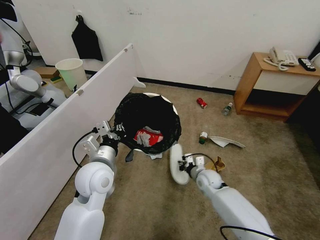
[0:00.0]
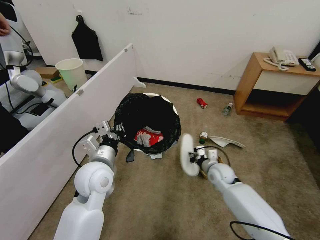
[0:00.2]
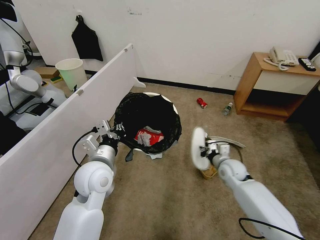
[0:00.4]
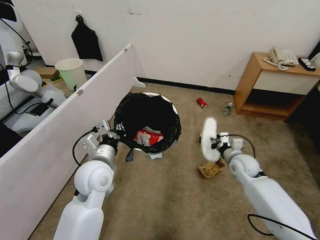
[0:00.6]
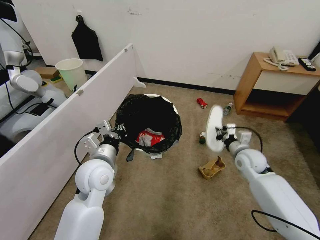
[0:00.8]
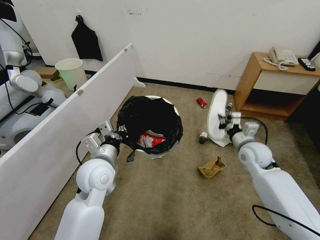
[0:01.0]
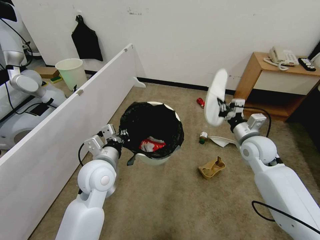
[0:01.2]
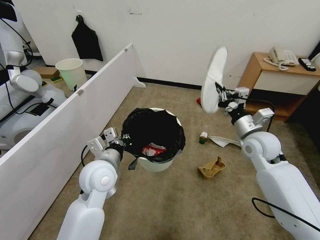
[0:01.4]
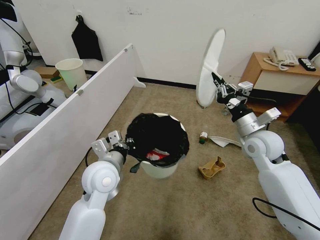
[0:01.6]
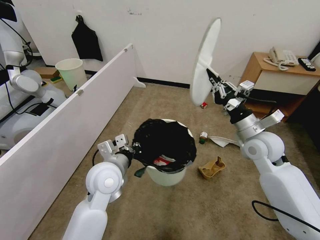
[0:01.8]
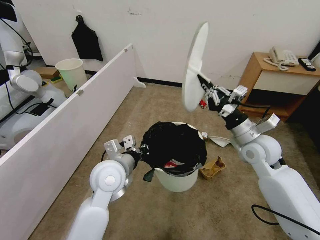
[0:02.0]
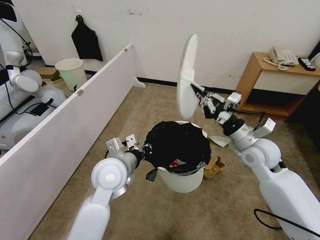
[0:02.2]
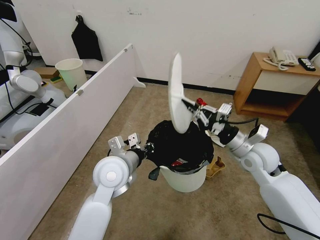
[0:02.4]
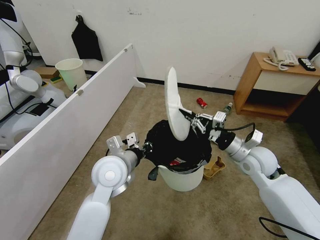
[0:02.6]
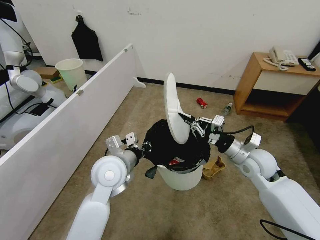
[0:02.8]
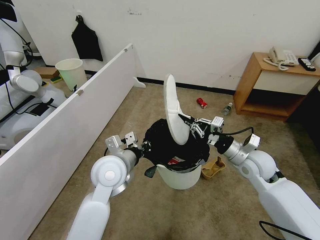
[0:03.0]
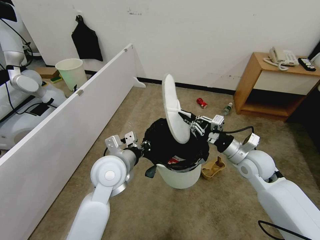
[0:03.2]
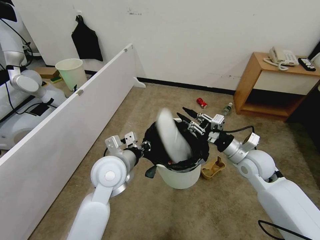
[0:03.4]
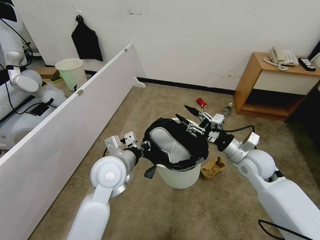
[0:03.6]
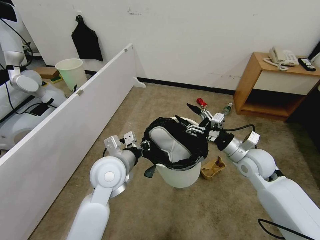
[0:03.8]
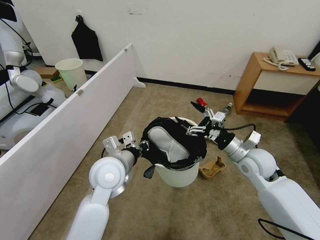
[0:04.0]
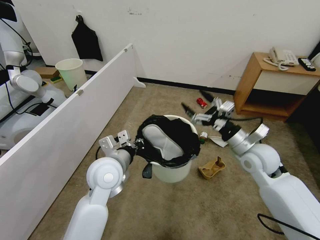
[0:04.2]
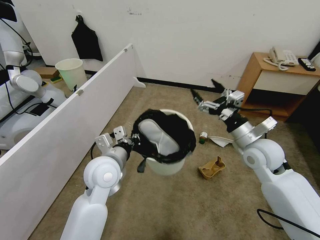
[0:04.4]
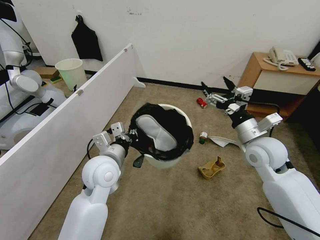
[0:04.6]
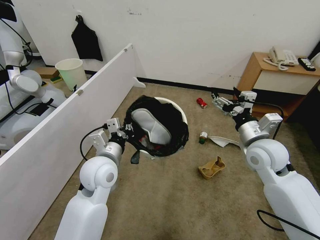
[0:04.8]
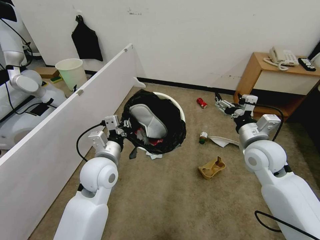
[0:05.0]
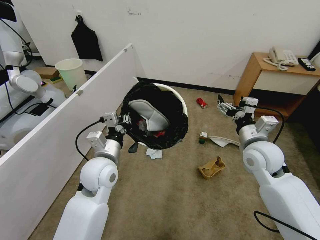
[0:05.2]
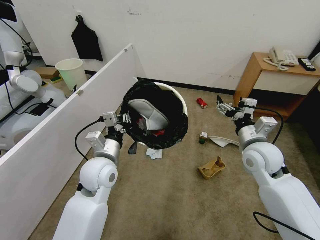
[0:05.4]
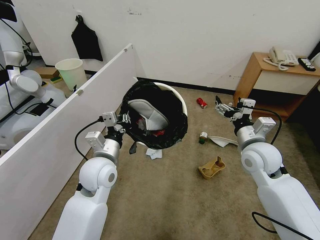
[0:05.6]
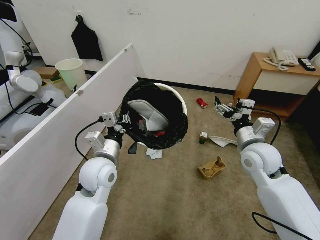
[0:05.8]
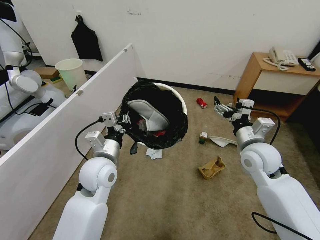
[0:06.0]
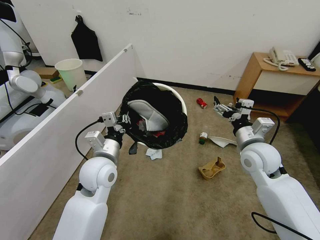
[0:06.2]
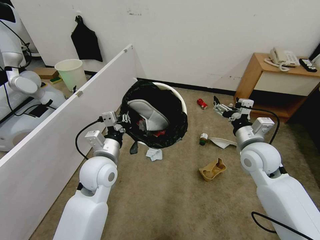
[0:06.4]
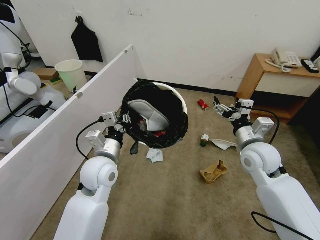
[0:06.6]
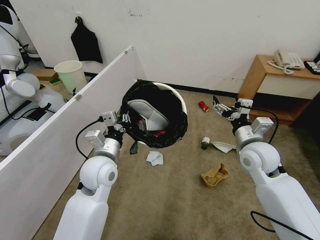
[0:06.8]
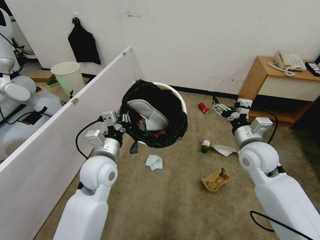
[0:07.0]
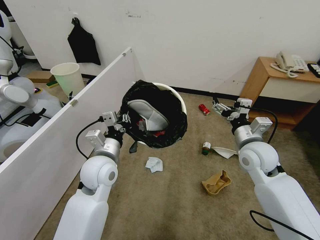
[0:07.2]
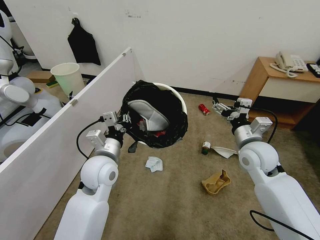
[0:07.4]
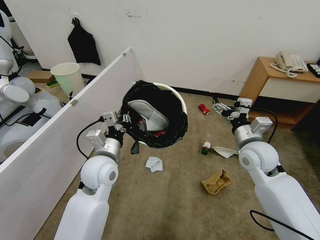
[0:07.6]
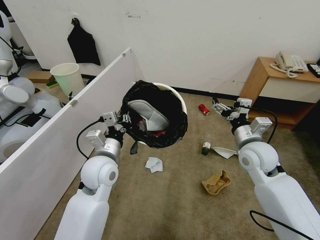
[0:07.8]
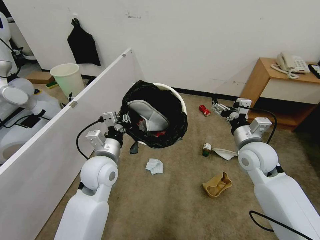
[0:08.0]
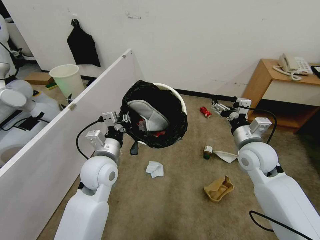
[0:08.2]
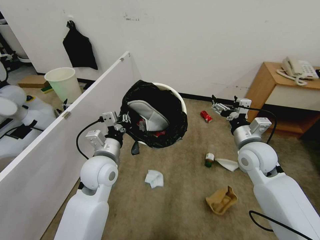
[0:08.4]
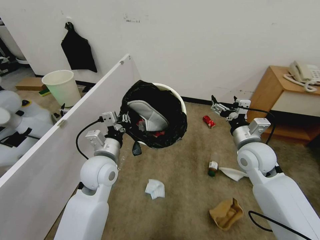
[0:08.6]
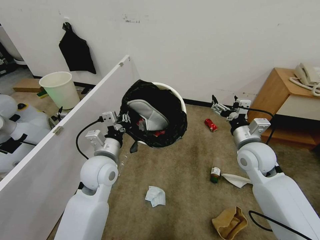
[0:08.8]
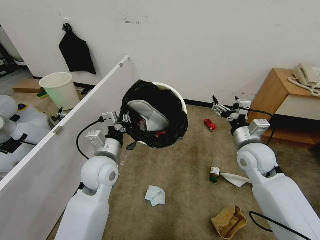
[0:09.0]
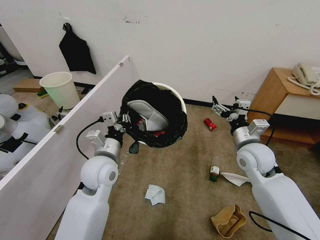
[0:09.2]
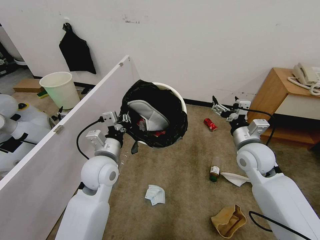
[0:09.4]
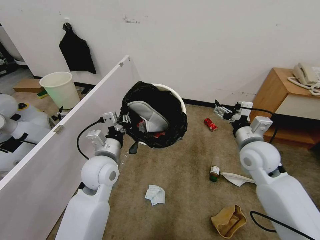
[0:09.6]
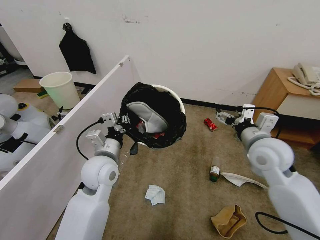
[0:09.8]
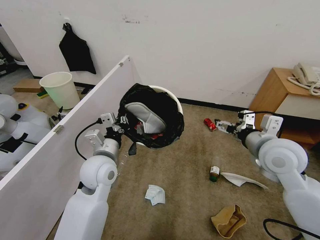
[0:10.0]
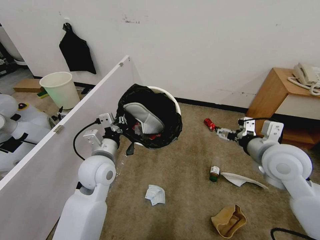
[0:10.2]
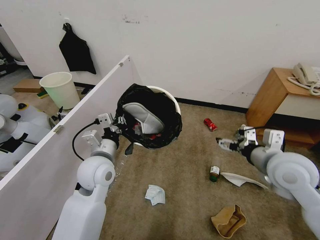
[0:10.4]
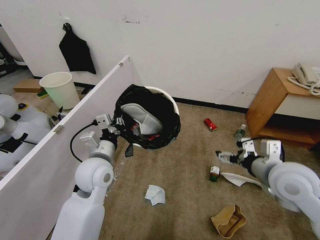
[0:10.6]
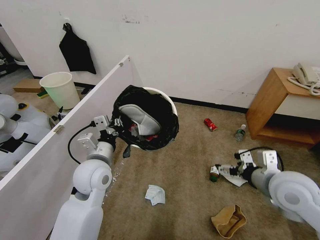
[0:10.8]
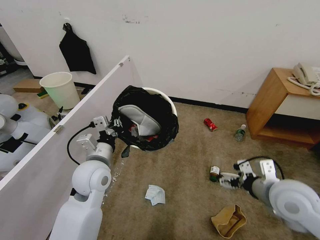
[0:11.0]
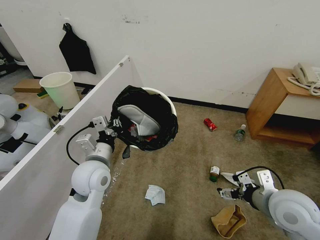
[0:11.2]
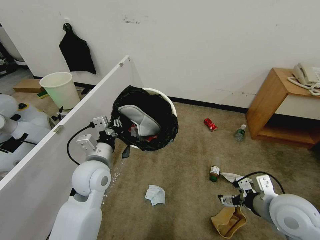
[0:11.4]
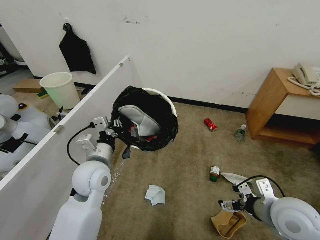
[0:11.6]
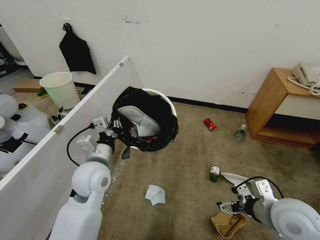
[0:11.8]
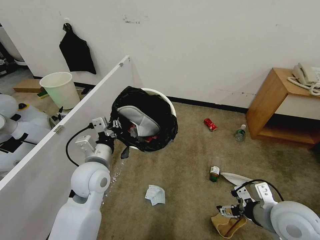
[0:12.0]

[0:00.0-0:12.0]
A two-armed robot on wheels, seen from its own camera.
Task of the whole recording: Pick up the trash bin, then pick up the garbage from the floor and place it into the trash bin.
0:00.0 to 0:01.6: The right gripper heads upward and to the right, covering some 30 cm.
0:01.6 to 0:03.0: The right gripper heads downward, covering some 5 cm.
0:03.0 to 0:04.4: The right gripper is displaced upward by approximately 5 cm, and opens.
0:09.0 to 0:10.4: The right gripper moves backward and upward, approximately 10 cm.
0:10.4 to 0:12.0: The right gripper shifts about 10 cm backward and downward.

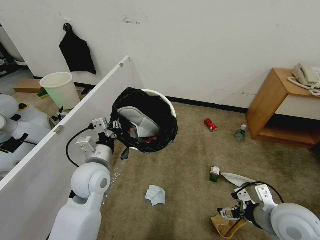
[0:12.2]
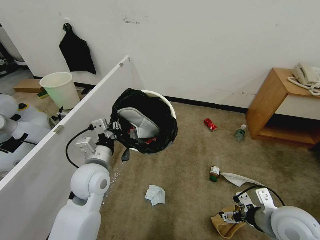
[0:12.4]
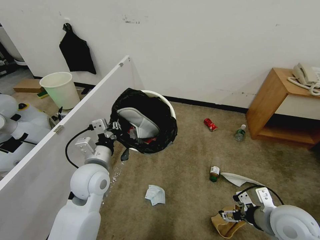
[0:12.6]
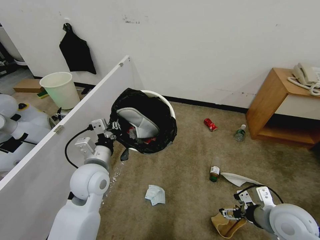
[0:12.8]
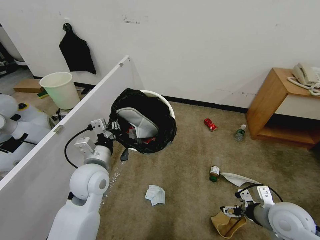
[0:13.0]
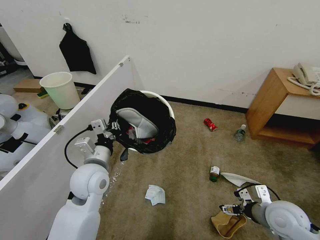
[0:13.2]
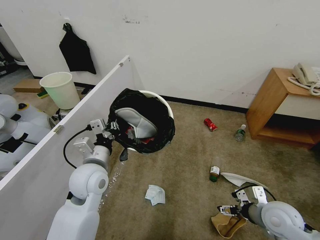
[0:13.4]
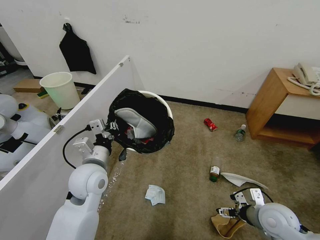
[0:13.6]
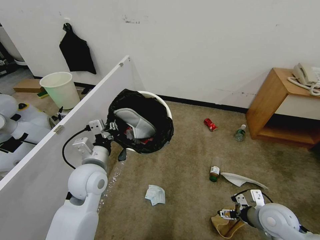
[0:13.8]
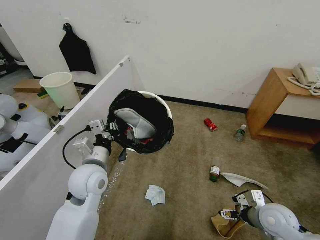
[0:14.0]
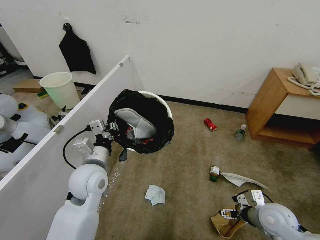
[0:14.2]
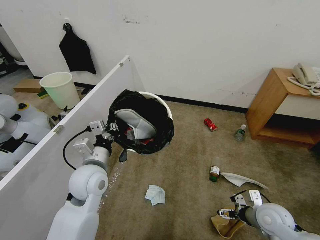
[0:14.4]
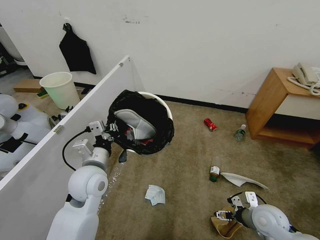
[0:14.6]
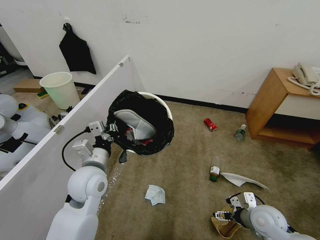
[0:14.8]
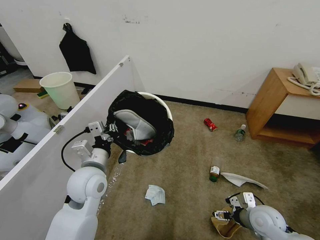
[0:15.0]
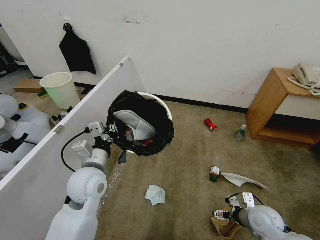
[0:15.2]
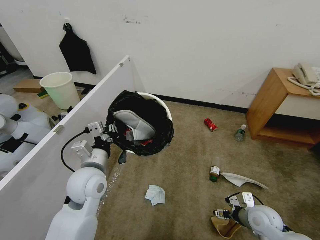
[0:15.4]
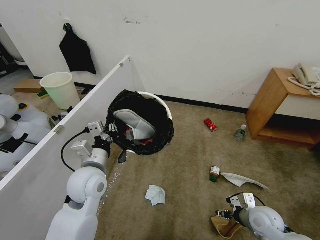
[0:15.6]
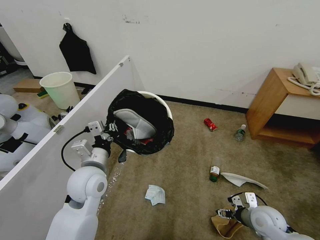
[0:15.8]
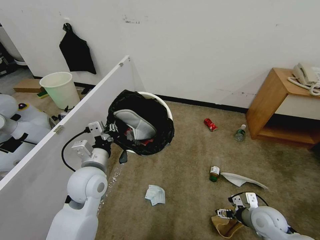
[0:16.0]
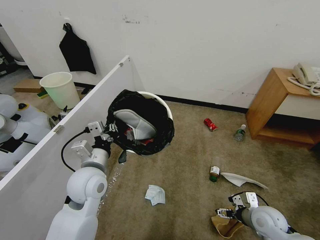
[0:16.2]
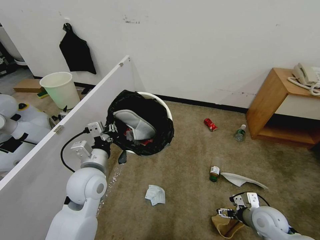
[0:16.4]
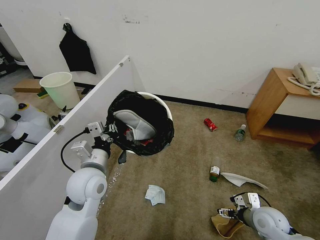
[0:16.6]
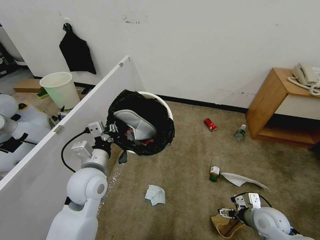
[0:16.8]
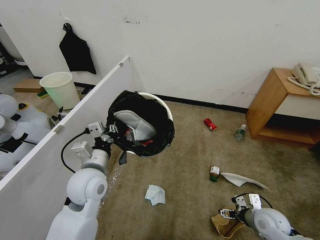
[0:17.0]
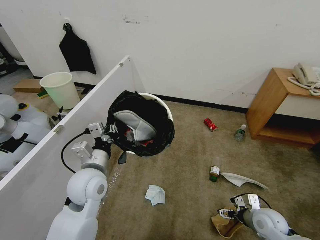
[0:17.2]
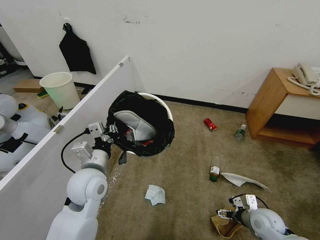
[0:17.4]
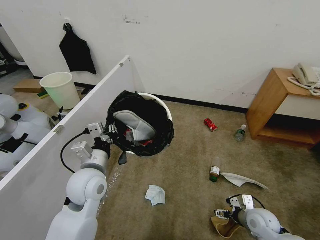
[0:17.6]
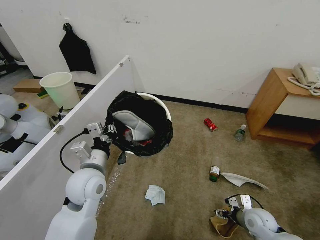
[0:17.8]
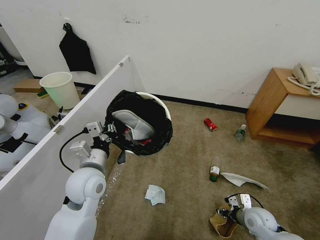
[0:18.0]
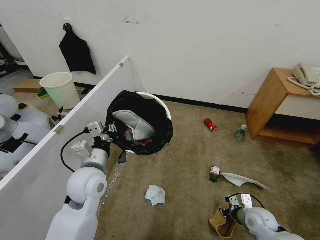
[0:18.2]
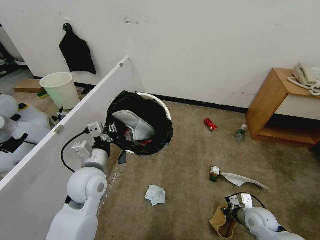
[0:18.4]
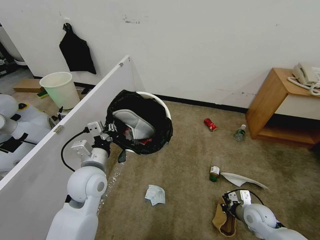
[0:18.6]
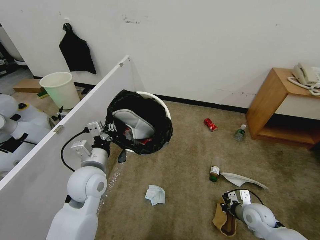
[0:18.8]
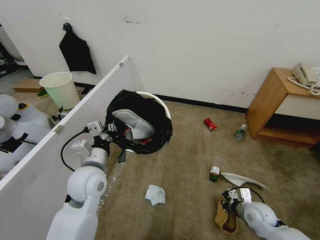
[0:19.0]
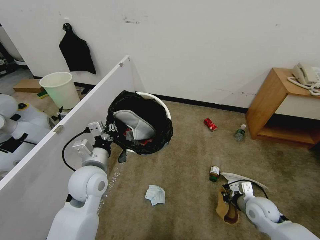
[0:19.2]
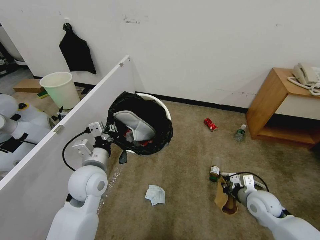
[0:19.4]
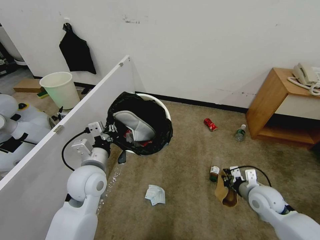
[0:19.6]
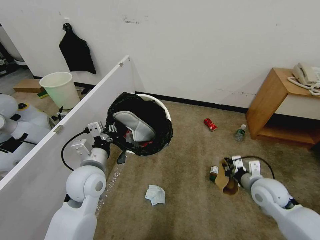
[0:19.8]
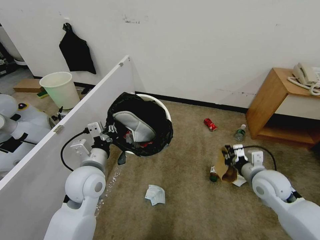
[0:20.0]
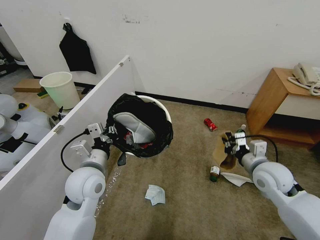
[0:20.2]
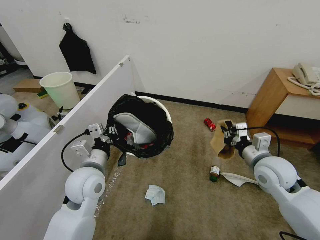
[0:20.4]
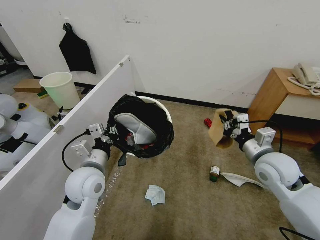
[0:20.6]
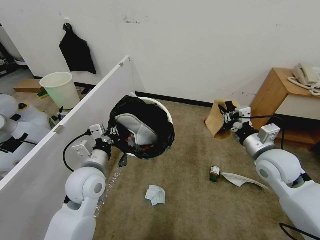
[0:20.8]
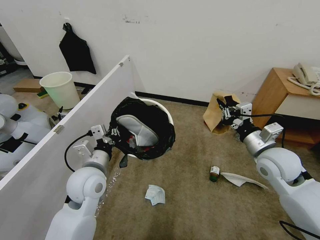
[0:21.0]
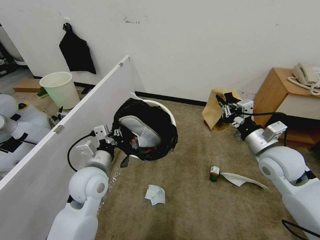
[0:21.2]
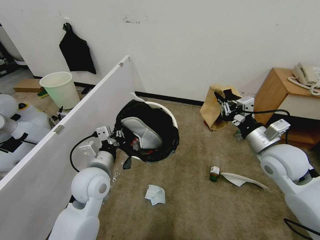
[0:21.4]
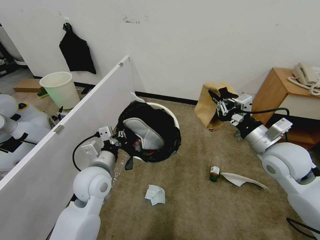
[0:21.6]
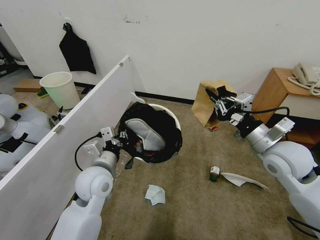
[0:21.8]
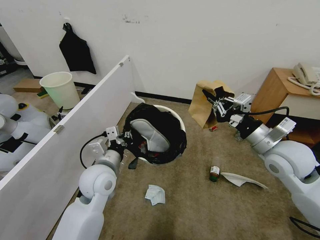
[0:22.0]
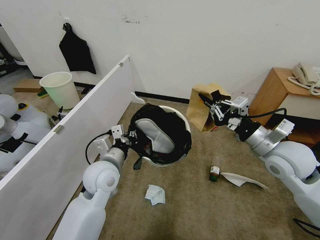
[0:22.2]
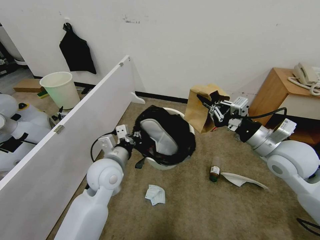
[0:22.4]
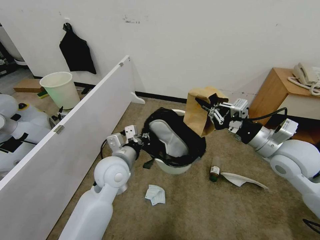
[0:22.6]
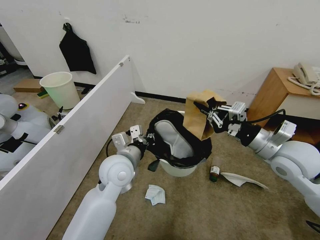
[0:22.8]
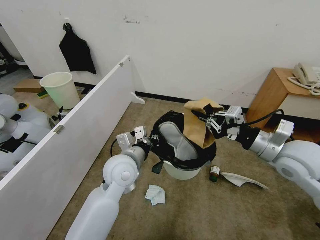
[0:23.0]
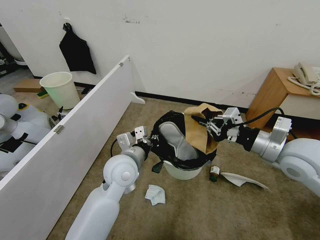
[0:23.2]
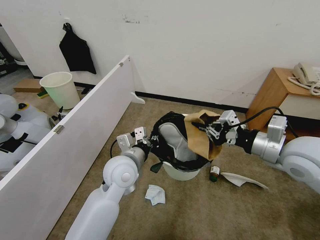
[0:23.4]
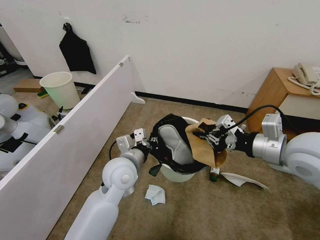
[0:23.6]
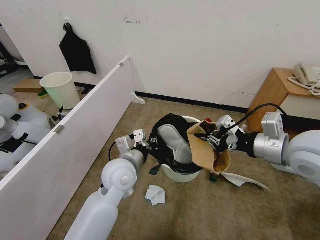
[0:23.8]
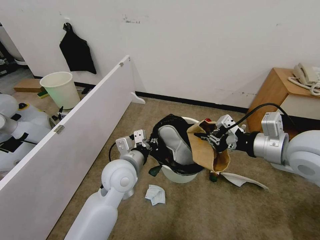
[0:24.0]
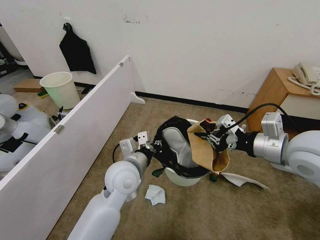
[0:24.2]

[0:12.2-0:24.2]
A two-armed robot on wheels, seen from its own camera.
Task of the whole recording: Pick up the trash bin, then pick up the garbage from the floor and place it into the trash bin.
0:12.2 to 0:13.8: The right gripper heads downward, covering some 10 cm.
0:13.8 to 0:15.2: The right gripper shifts about 5 cm downward.
0:15.2 to 0:16.6: The grippers stay close to where they were, moving slightly.
0:16.6 to 0:18.2: The right gripper closes up.
0:18.2 to 0:19.8: The right gripper shifts approximately 10 cm upward.
0:19.8 to 0:21.2: The right gripper heads upward, covering approximately 15 cm.
0:21.2 to 0:22.6: The left gripper heads to the right, covering some 5 cm.
0:22.6 to 0:24.2: The right gripper goes about 5 cm upward.
